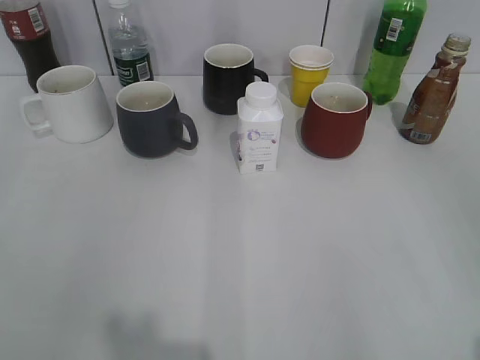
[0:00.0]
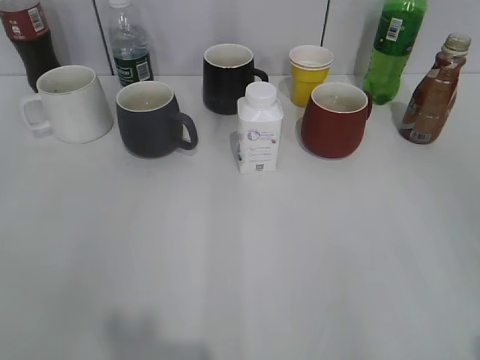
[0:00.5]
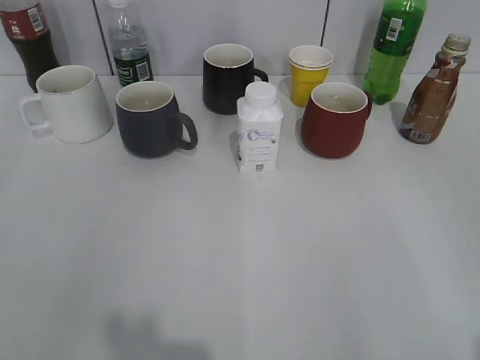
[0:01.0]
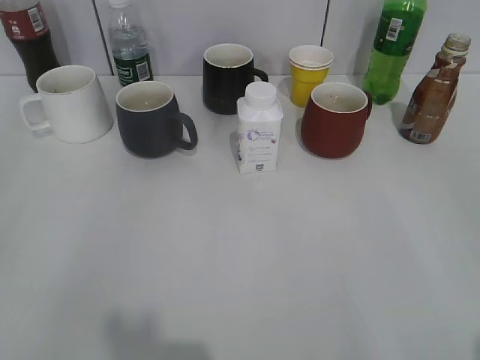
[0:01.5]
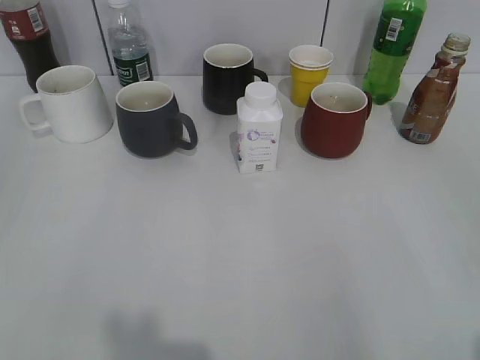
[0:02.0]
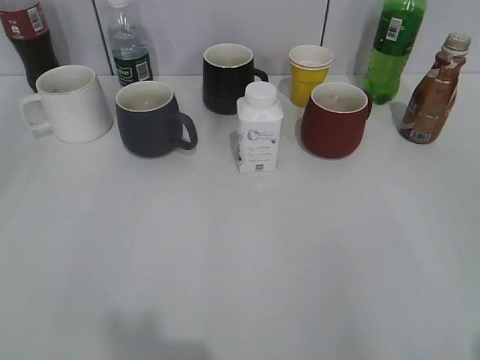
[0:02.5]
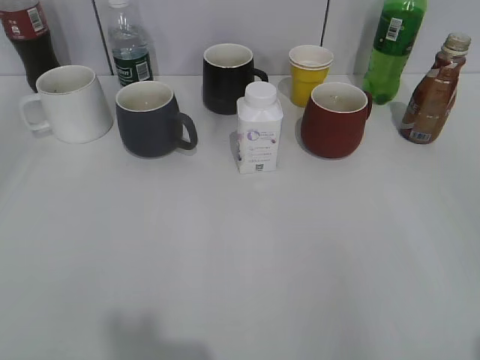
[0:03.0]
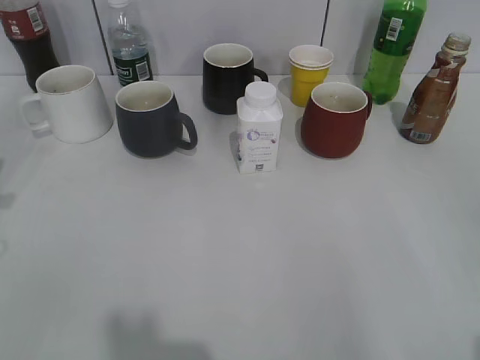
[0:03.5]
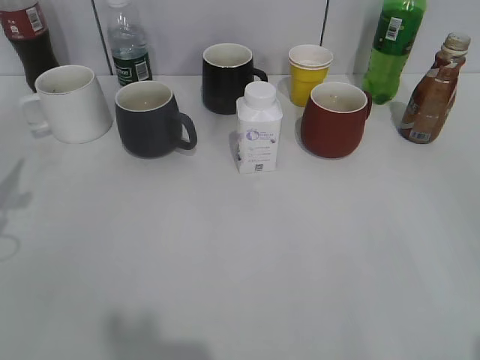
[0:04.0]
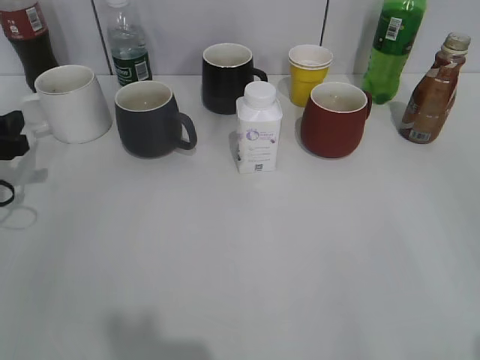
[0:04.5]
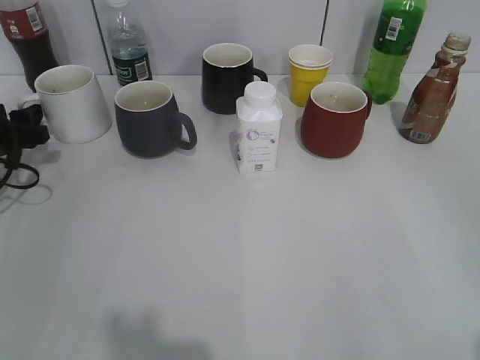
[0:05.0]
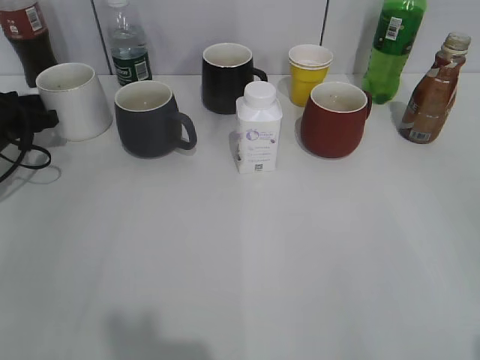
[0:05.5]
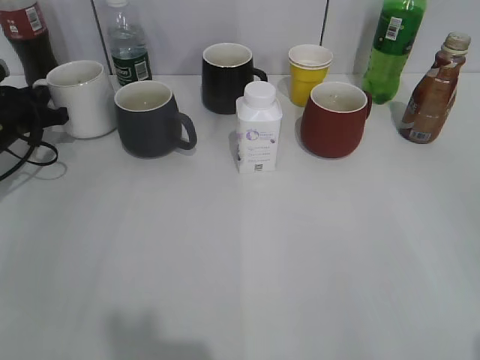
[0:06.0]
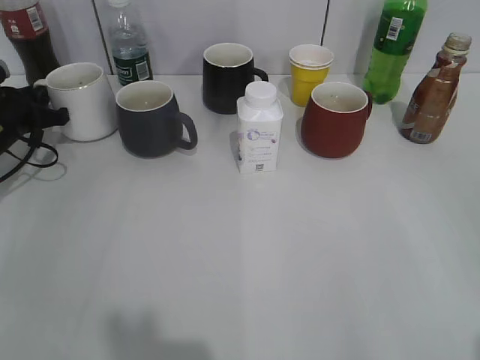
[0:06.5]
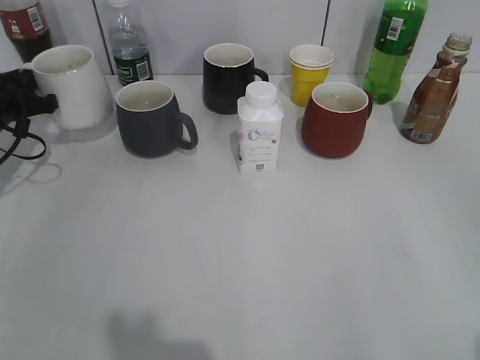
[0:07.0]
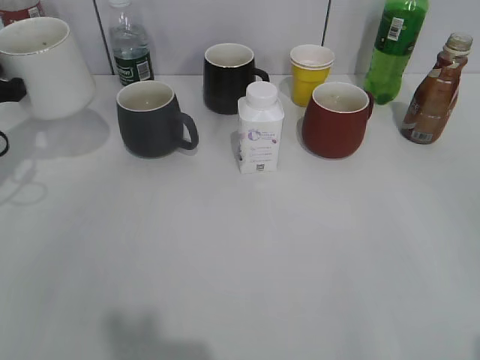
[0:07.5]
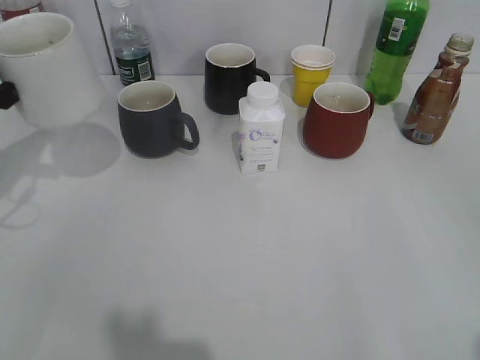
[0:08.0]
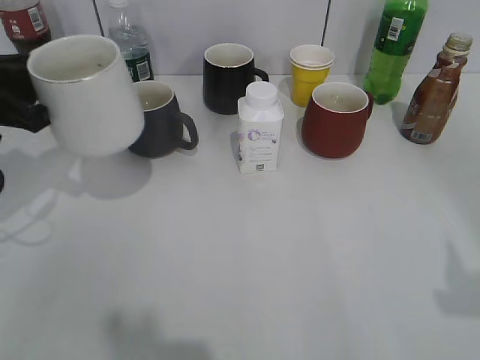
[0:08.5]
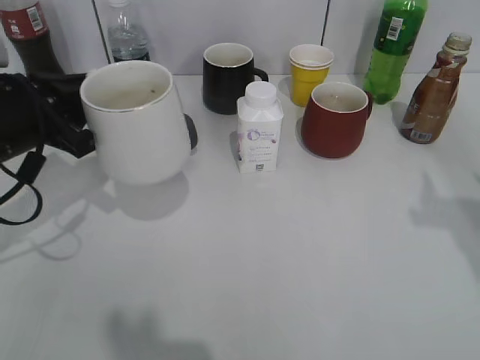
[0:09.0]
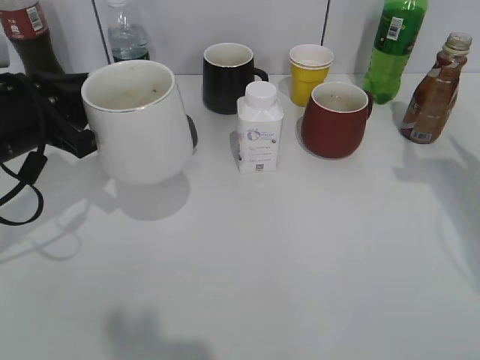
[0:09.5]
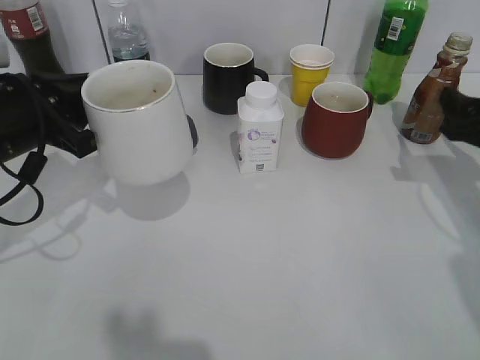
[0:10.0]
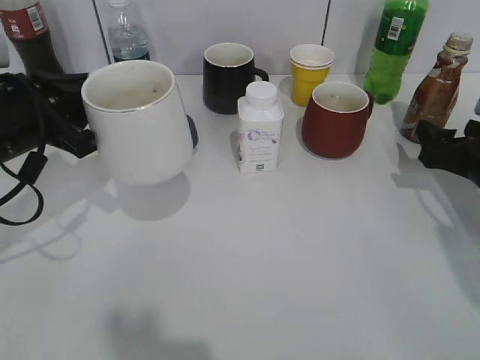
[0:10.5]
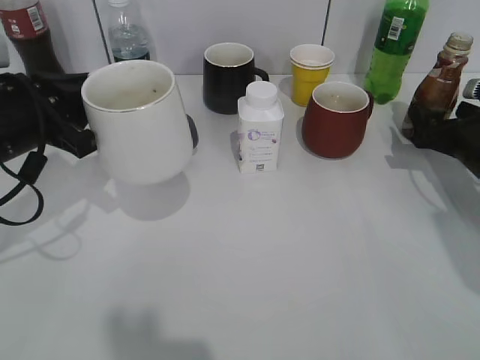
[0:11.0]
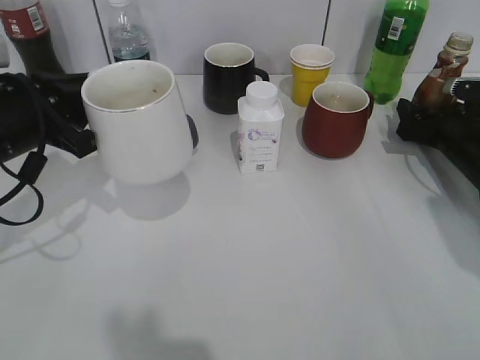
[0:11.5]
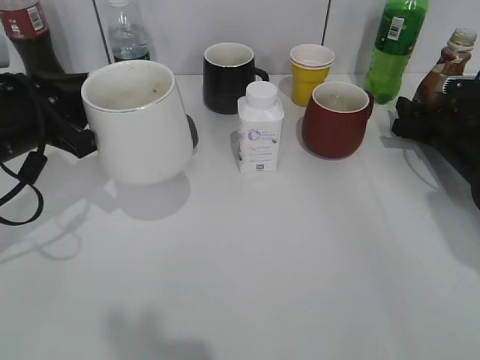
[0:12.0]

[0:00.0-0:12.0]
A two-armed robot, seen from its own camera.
Step, 0:03.5 to 0:06.5: Grasp the white cup with left gripper.
Step, 0:07.0 to 0:10.0: Lift the white cup with left gripper.
Step, 0:10.5 to 0:11.5: Grasp the bottle with coffee with right gripper.
0:04.0 to 0:06.0: The left gripper is displaced forward by some 15 cm, and closes.
0:06.0 to 0:08.0: The left gripper goes roughly 15 cm backward and upward.
0:08.0 to 0:10.0: The right gripper moves forward, some 30 cm, while the left gripper travels to the right by about 10 cm.
0:10.0 to 0:12.0: The right gripper is displaced forward and downward by some 15 cm, and closes up.

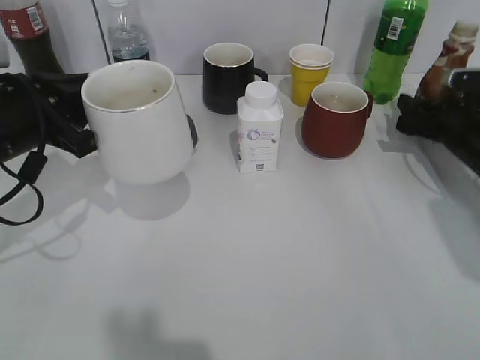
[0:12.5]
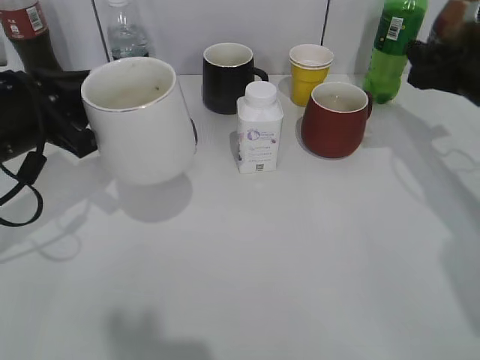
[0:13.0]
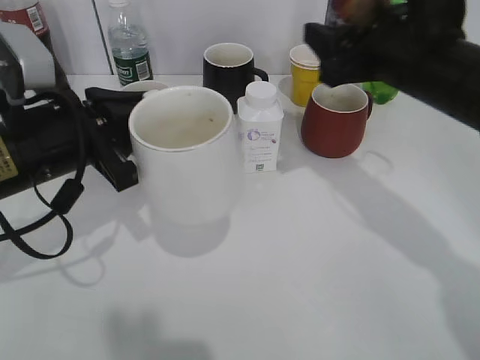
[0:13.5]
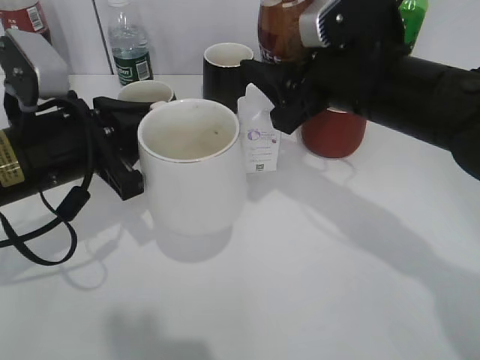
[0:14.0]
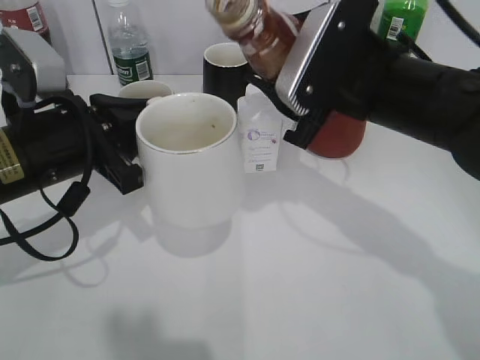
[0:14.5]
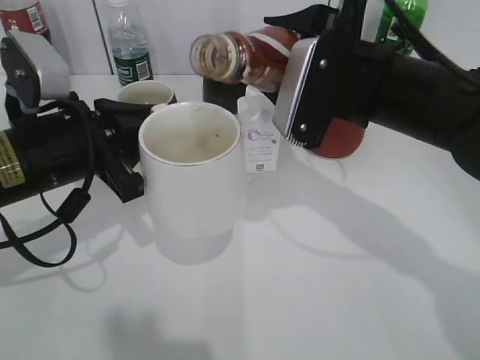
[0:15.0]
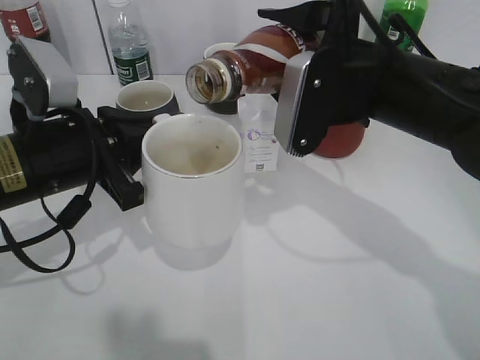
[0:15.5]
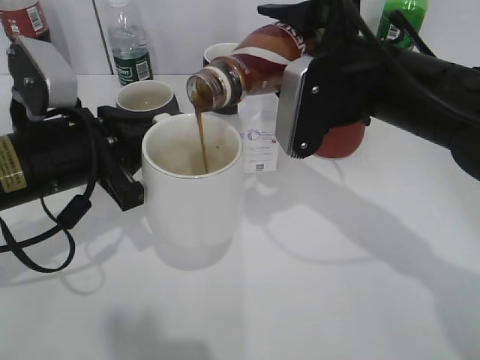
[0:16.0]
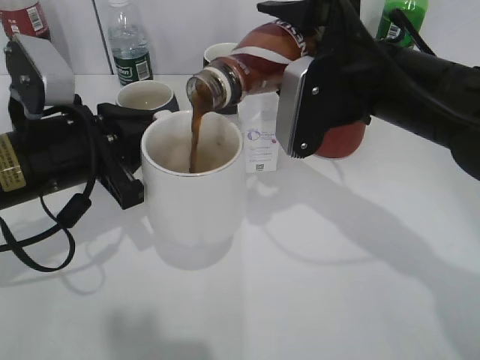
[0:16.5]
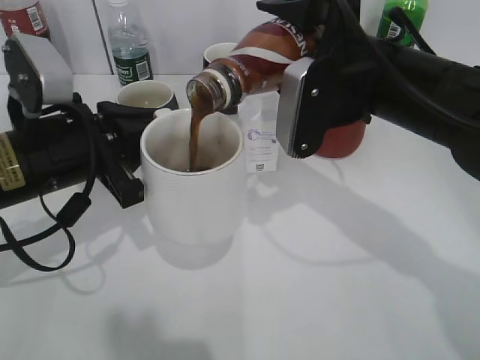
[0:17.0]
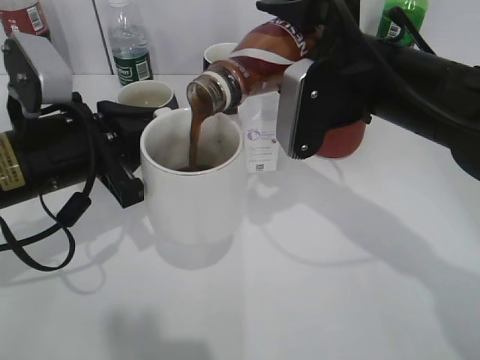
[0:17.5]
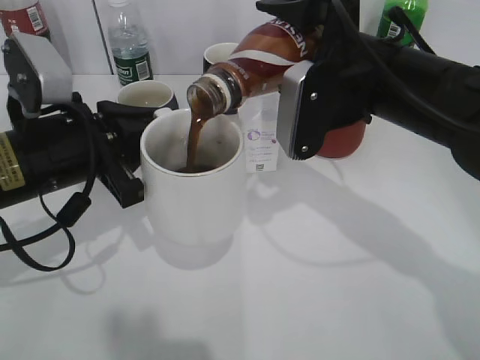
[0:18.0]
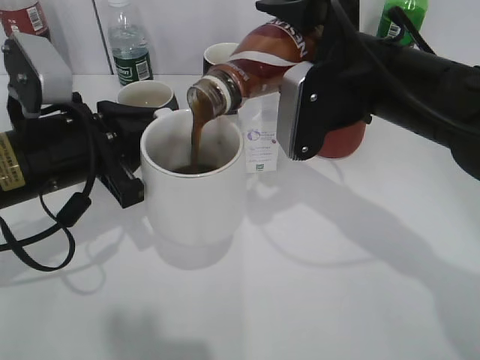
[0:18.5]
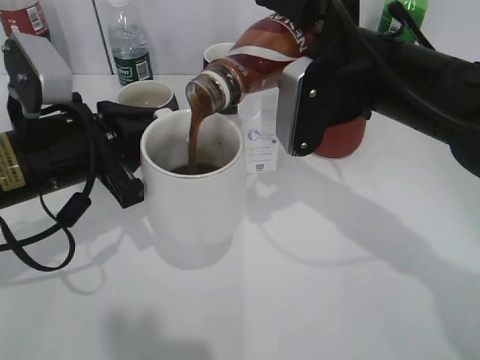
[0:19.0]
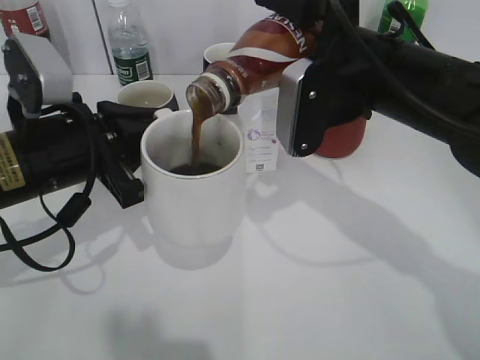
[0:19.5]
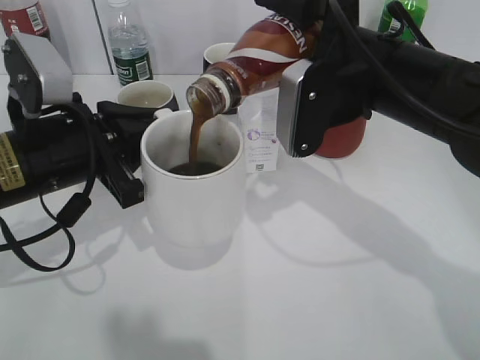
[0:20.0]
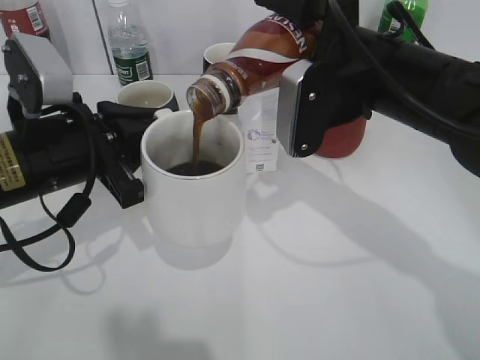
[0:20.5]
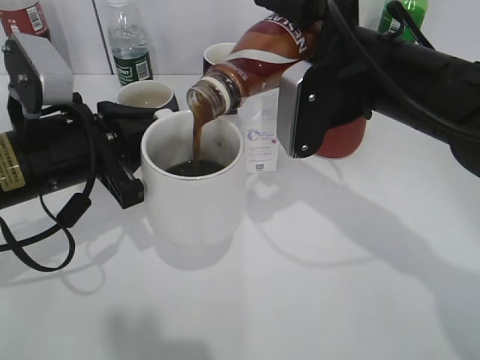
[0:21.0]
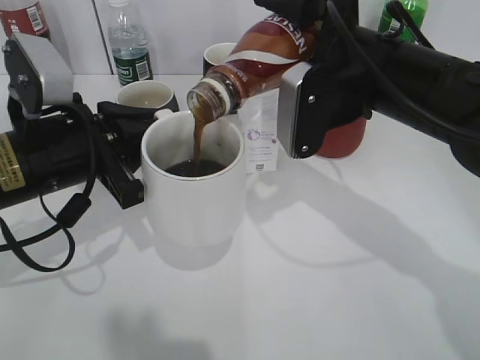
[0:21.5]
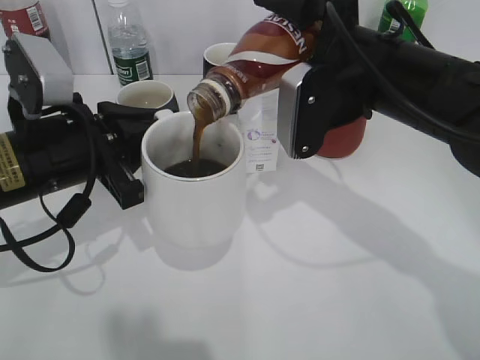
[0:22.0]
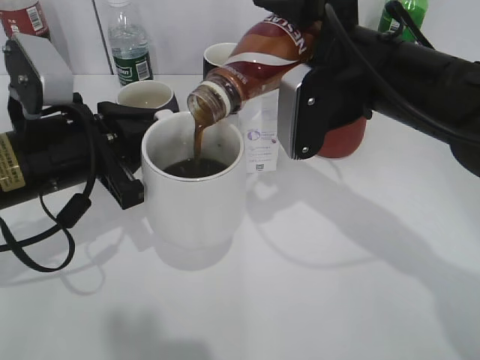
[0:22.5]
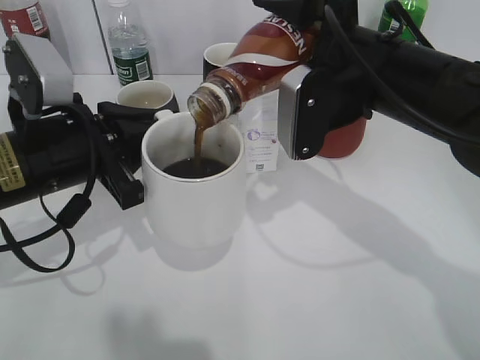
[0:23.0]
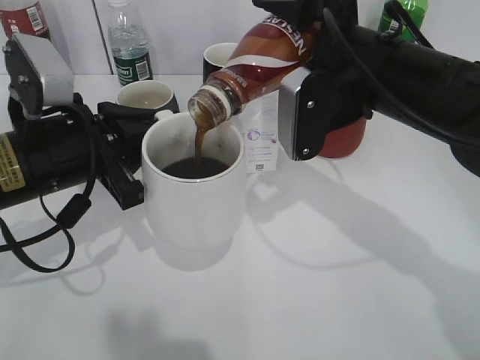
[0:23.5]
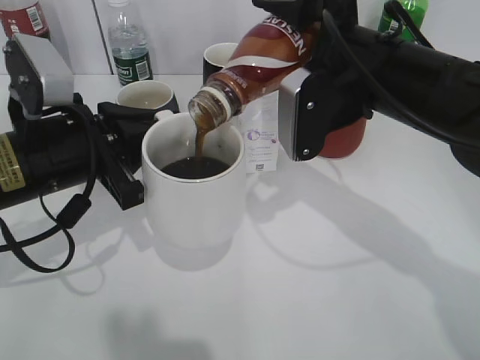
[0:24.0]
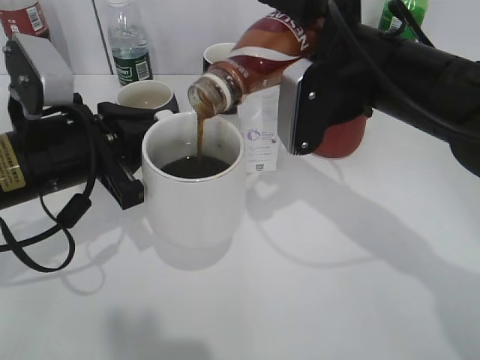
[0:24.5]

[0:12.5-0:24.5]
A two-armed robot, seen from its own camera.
0:12.5 to 0:14.5: The left gripper shifts by some 5 cm. Meanwhile the right gripper travels to the left, upward and backward by roughly 25 cm.
0:16.5 to 0:18.5: The two grippers keep their place.
0:18.5 to 0:20.5: Both grippers stay about where they are.
0:20.5 to 0:22.5: The two grippers keep their place.
0:22.5 to 0:24.5: Both grippers stay put.

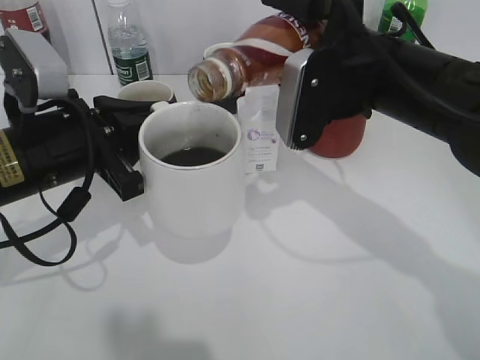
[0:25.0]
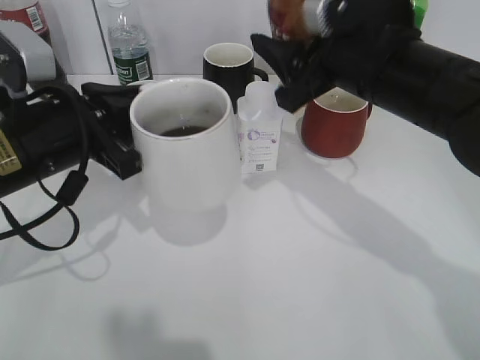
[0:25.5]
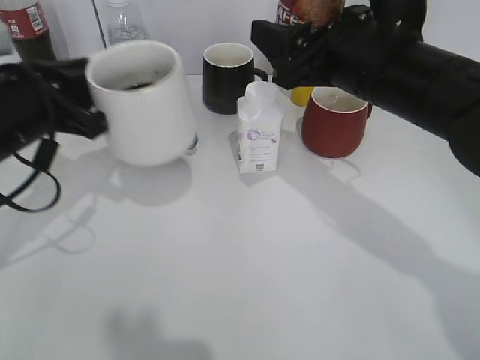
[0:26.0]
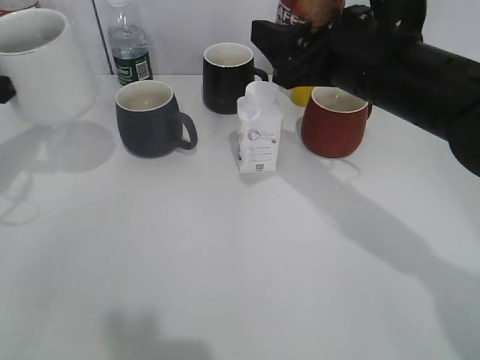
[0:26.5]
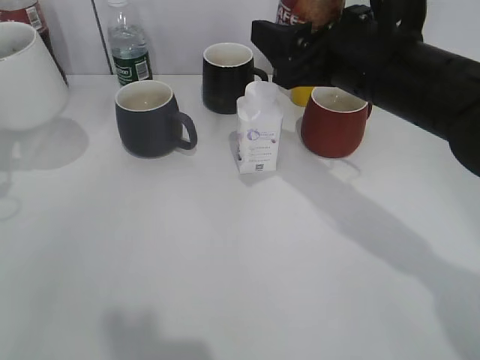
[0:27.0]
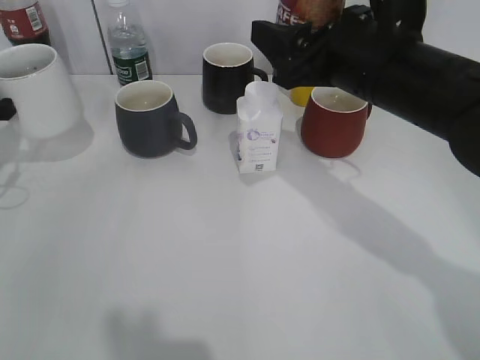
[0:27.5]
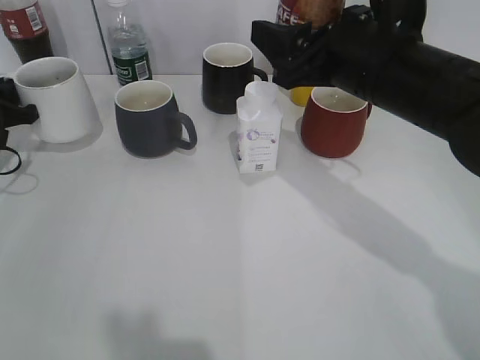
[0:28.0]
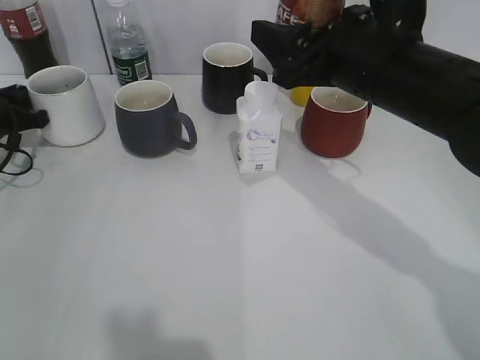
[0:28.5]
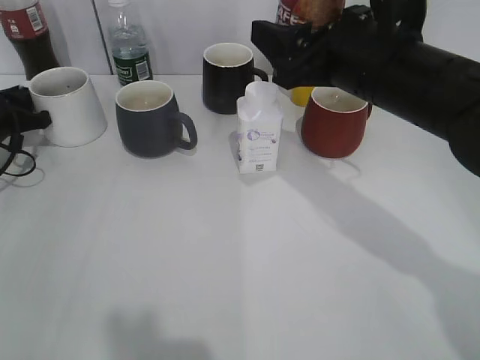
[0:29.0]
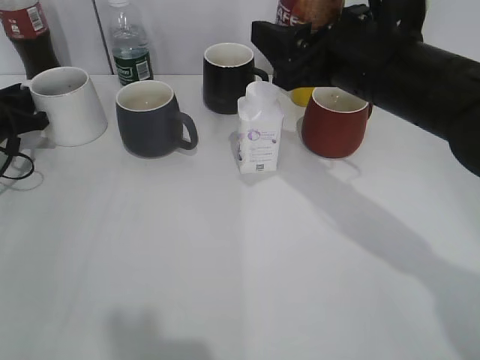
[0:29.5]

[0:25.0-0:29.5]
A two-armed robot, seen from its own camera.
0:25.0 to 0:27.0: The left gripper is displaced to the left by about 15 cm.
0:27.0 to 0:29.5: The left gripper moves forward and downward, some 15 cm.
